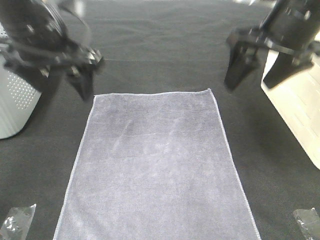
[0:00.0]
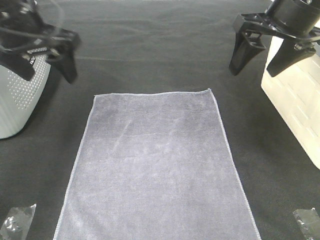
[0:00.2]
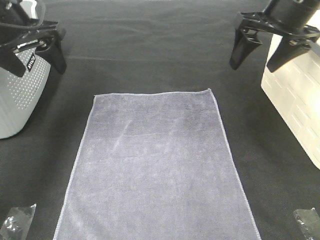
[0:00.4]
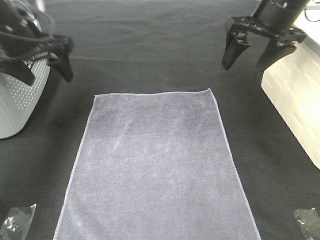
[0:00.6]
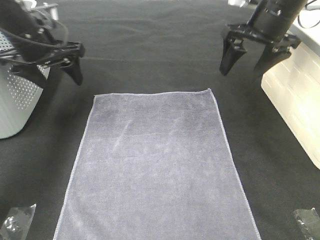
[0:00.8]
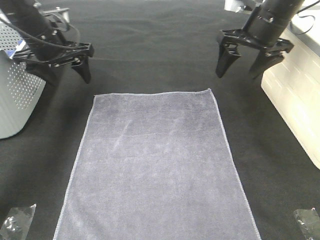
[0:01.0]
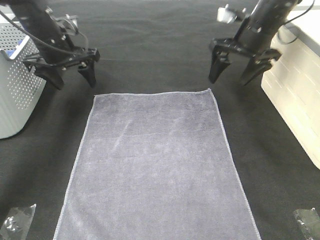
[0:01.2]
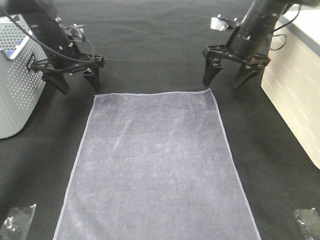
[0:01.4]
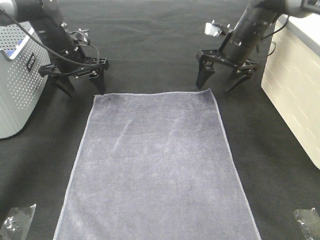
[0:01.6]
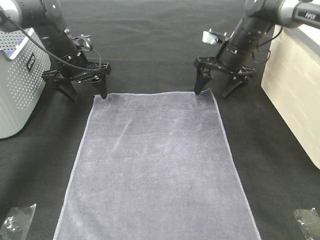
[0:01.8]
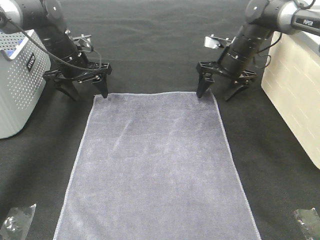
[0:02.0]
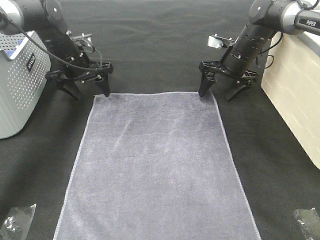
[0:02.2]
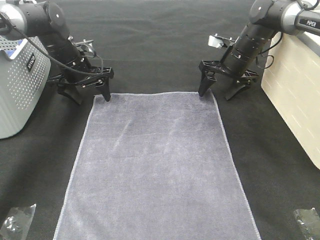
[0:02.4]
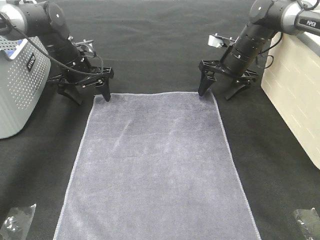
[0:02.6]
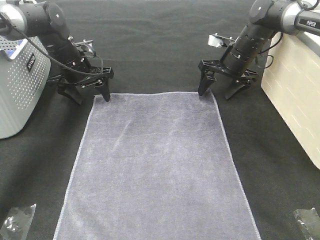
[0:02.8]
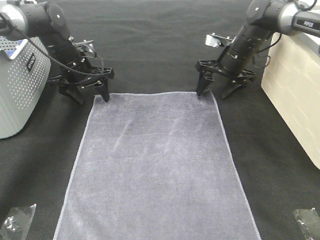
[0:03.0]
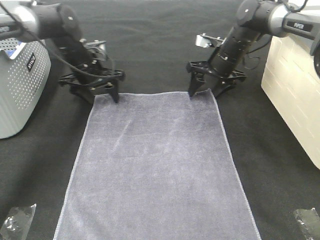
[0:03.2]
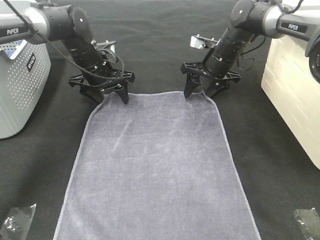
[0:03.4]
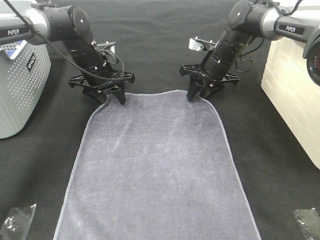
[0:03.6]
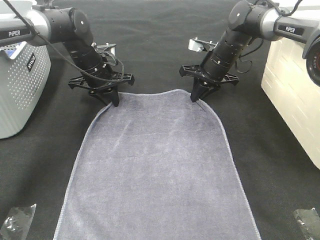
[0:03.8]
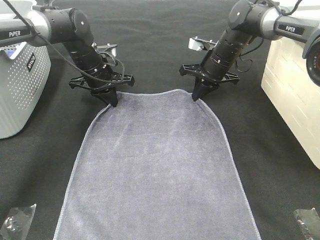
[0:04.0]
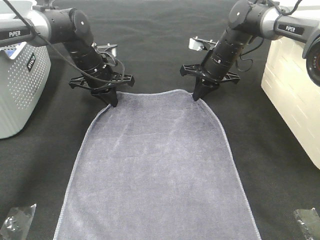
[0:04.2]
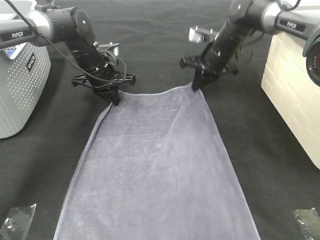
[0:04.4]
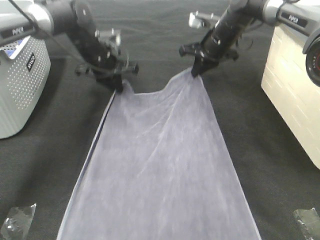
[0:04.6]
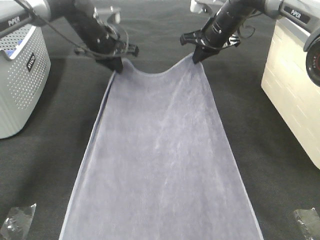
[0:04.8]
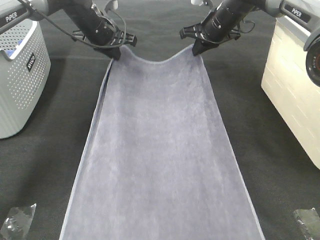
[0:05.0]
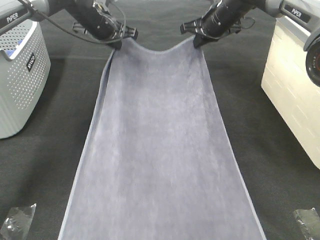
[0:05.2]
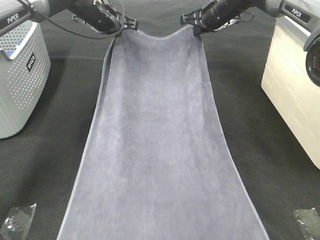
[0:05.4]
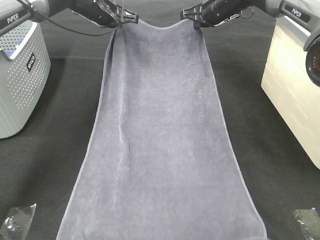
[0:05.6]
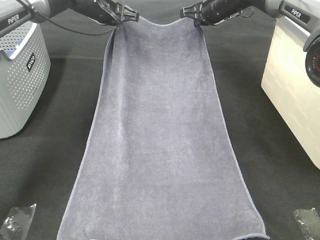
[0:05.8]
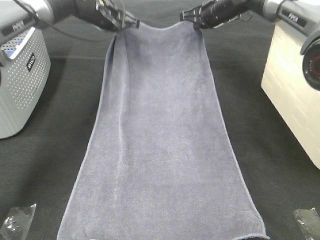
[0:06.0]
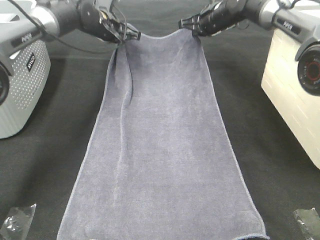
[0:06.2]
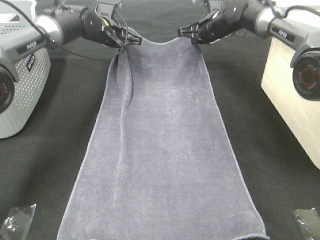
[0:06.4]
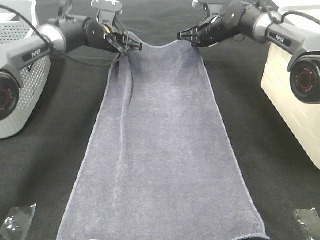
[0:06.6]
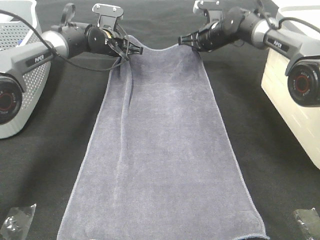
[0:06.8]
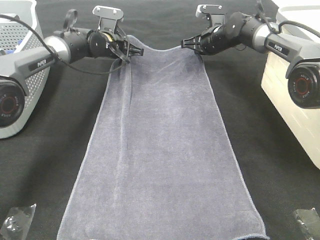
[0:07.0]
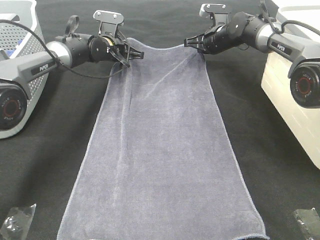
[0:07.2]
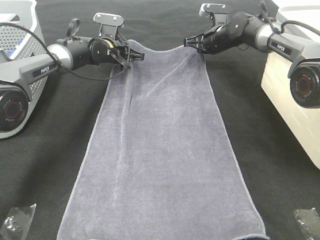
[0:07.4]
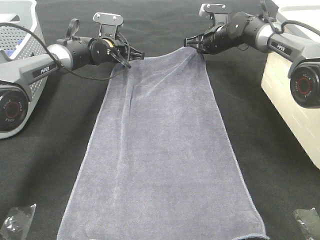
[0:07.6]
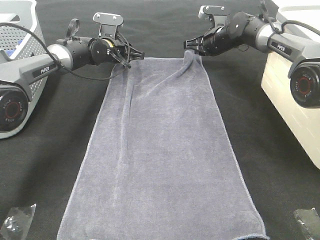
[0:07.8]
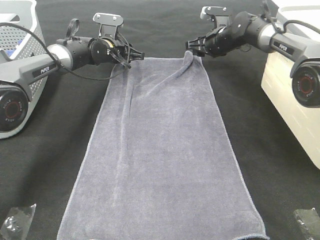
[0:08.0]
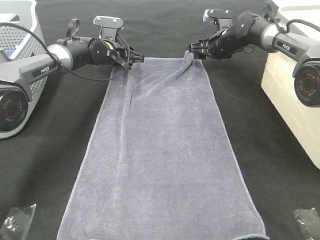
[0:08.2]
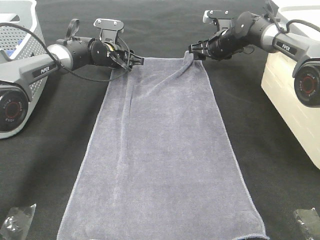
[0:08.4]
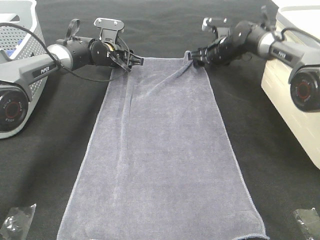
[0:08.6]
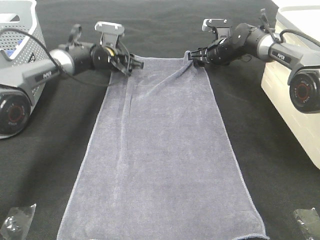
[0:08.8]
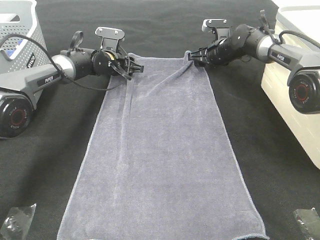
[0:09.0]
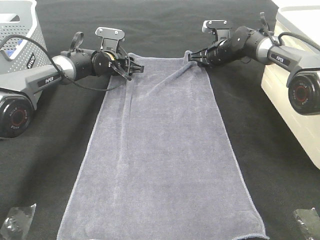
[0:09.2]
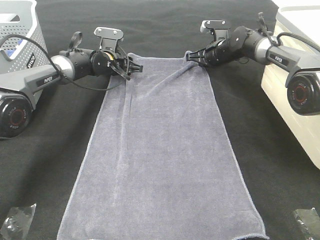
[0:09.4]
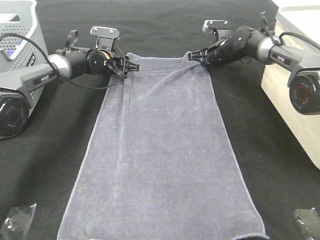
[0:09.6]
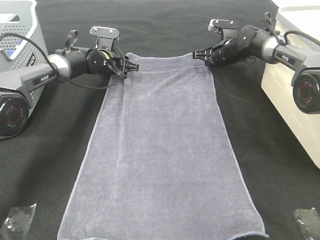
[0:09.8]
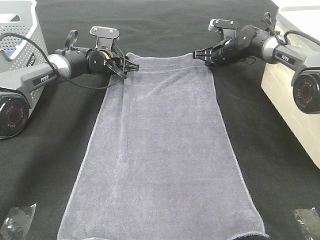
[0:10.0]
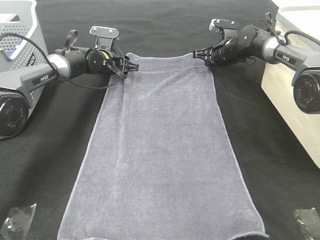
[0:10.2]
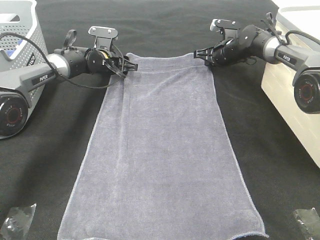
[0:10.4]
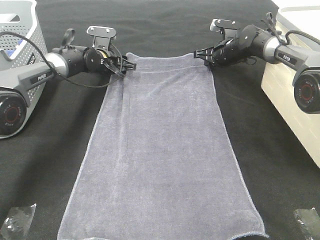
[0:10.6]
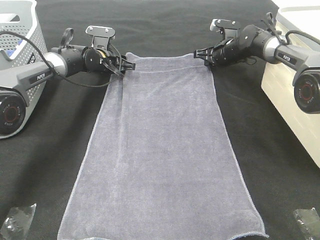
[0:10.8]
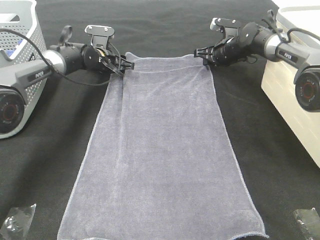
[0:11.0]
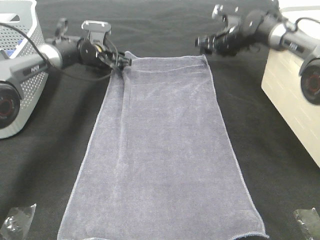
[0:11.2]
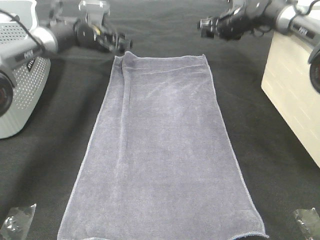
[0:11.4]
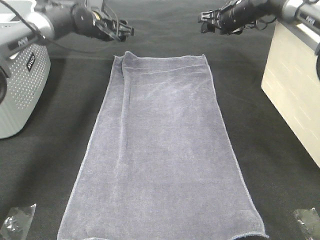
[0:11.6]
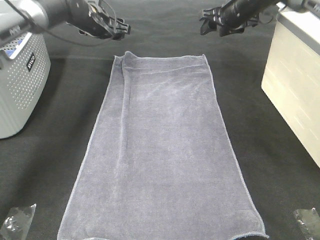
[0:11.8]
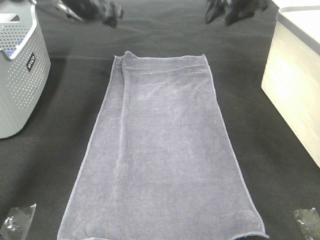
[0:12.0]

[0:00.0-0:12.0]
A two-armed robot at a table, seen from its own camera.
Task of the whole recording: Remove the towel and place it.
0:00.0 to 0:01.6: Both grippers move forward and downward, approximately 25 cm.
0:01.6 to 0:03.0: There are only small adjustments of the grippers.
0:03.0 to 0:04.4: The right gripper closes. Meanwhile the left gripper closes.
0:04.4 to 0:06.0: The two grippers go roughly 10 cm upward and forward.
0:06.0 to 0:07.6: The grippers both shift downward by roughly 10 cm.
0:07.6 to 0:09.0: The right gripper opens.
0:09.0 to 0:10.4: The right gripper closes its fingers.
0:10.4 to 0:12.0: Both grippers travel together upward, roughly 20 cm. The right gripper opens up.

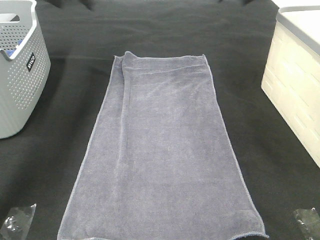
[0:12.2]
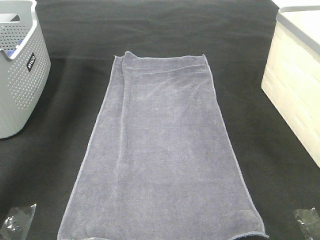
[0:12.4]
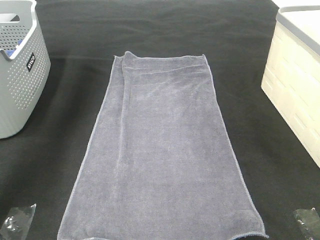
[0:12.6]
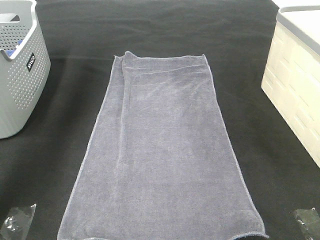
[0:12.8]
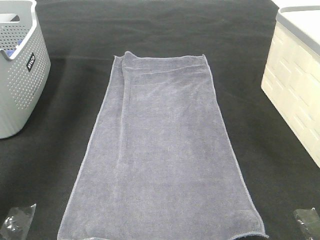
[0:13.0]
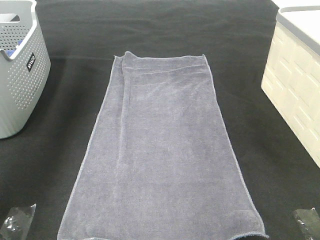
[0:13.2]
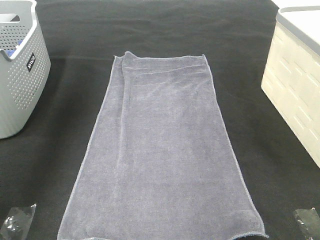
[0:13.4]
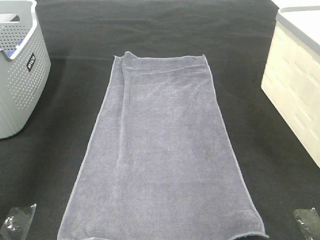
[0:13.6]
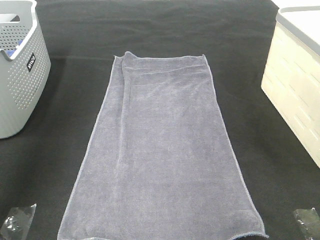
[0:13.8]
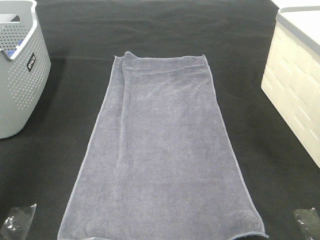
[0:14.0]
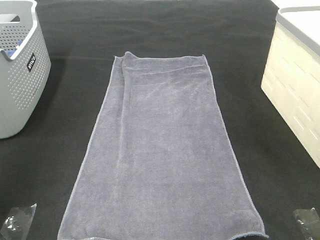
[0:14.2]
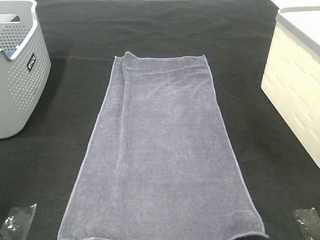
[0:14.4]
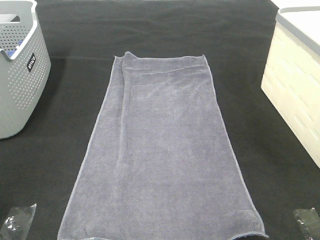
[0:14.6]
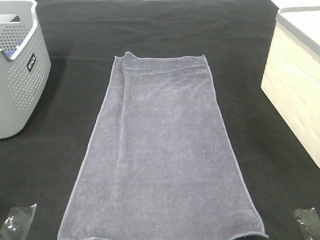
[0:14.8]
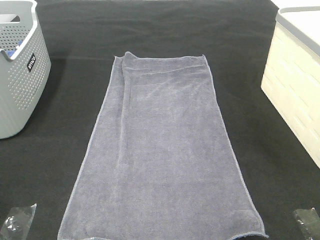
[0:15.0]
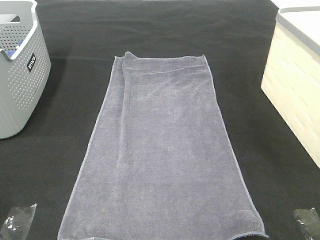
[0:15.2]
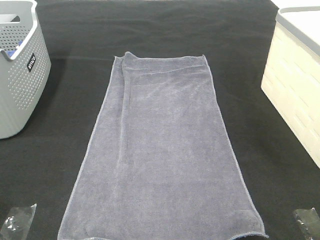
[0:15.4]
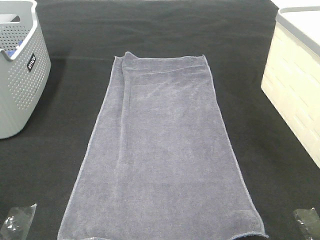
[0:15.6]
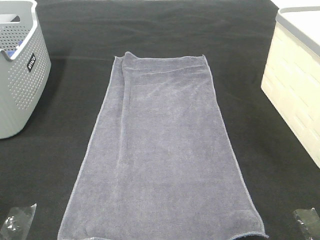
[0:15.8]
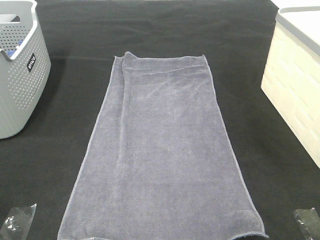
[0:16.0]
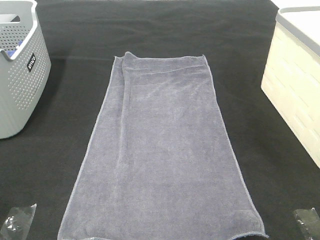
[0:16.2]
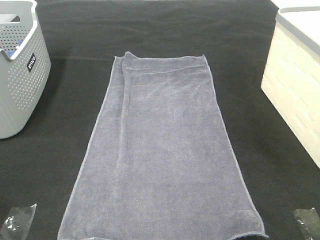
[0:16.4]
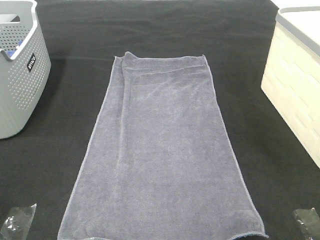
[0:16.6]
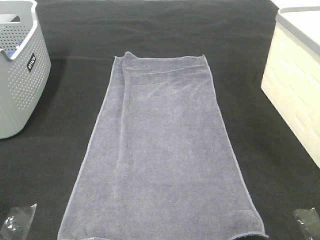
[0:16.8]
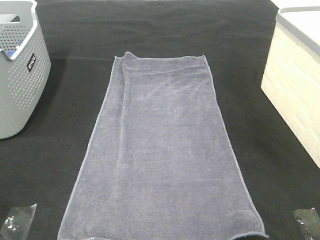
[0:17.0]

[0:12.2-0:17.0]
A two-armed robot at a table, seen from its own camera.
Task of the whole recording: Remove the towel and place it.
0:12.2 to 0:13.8: The two grippers go approximately 35 cm backward.
0:13.8 to 0:15.4: The left gripper heads backward and downward, covering about 25 cm.

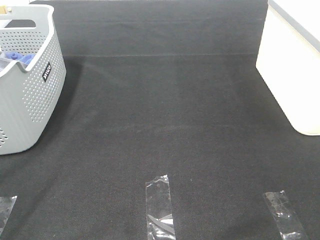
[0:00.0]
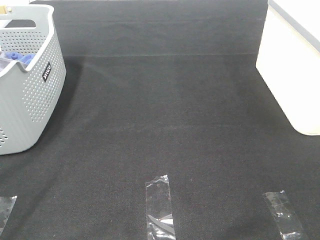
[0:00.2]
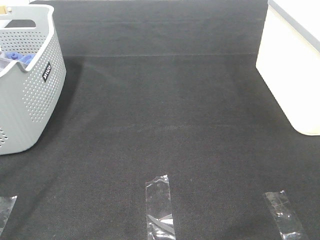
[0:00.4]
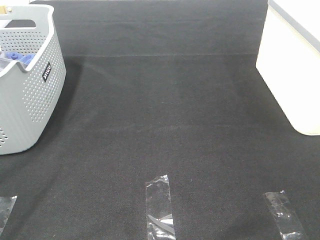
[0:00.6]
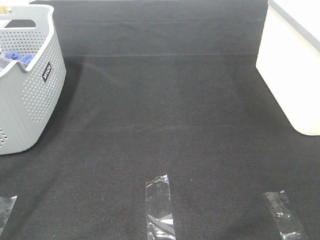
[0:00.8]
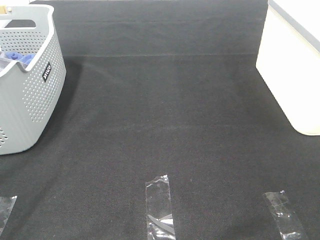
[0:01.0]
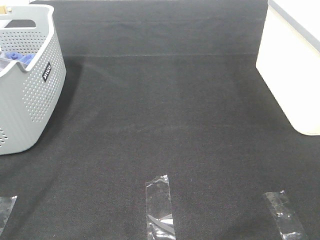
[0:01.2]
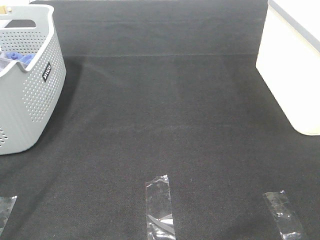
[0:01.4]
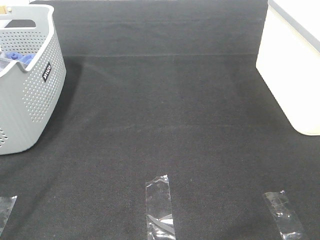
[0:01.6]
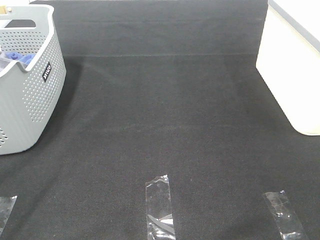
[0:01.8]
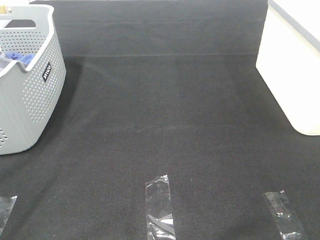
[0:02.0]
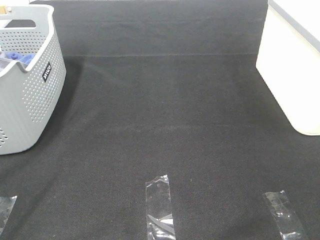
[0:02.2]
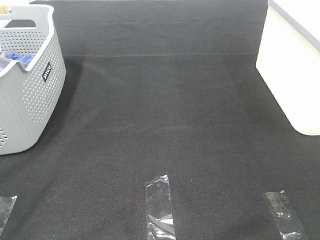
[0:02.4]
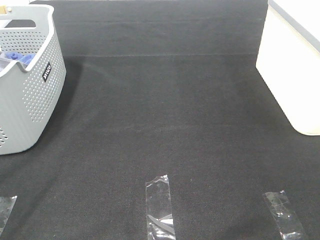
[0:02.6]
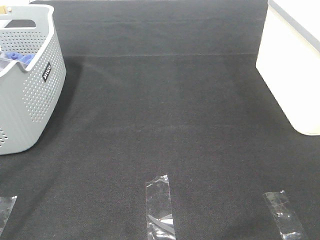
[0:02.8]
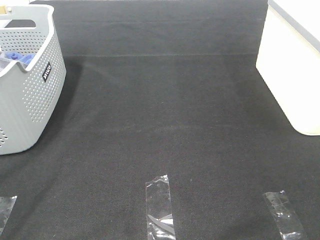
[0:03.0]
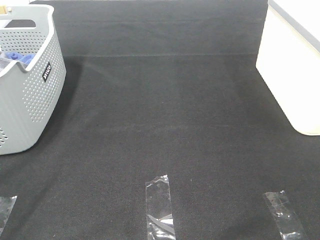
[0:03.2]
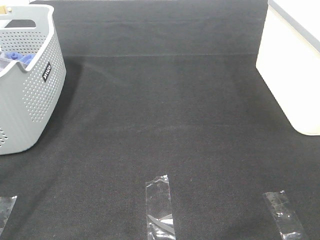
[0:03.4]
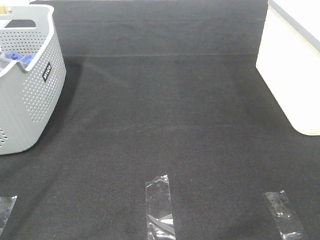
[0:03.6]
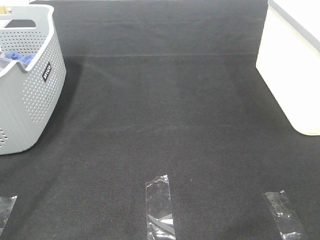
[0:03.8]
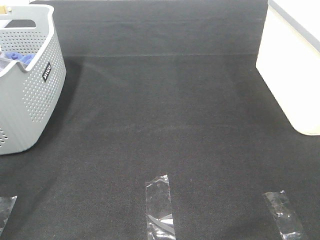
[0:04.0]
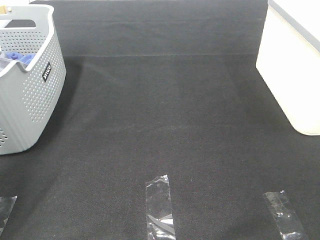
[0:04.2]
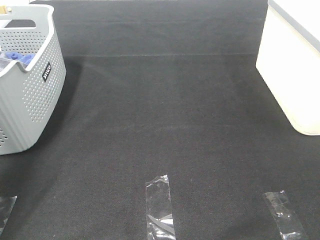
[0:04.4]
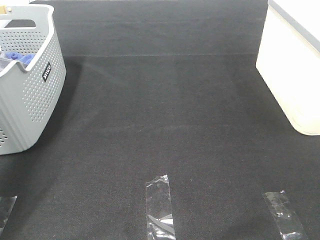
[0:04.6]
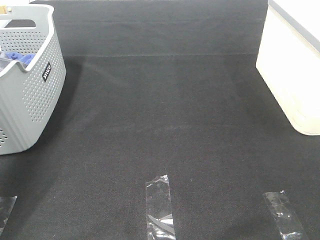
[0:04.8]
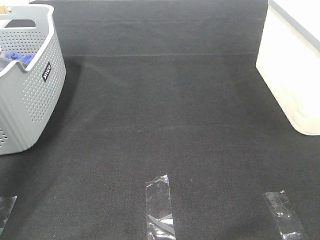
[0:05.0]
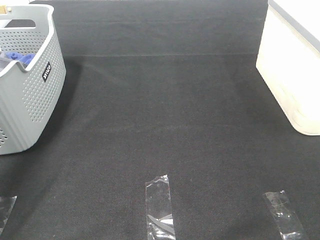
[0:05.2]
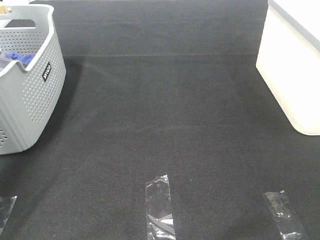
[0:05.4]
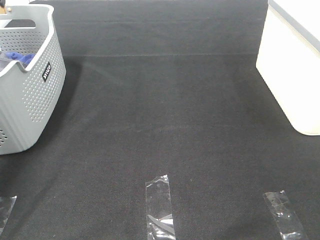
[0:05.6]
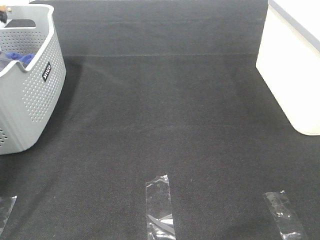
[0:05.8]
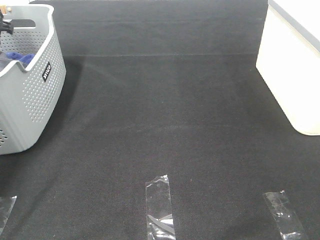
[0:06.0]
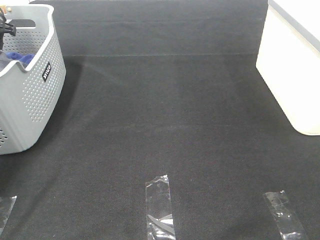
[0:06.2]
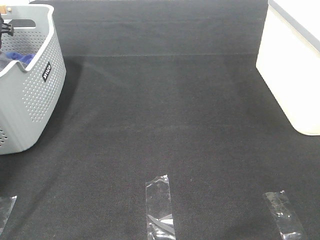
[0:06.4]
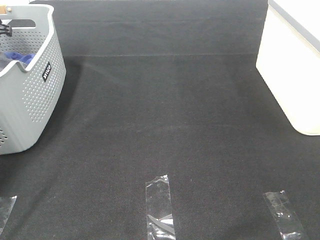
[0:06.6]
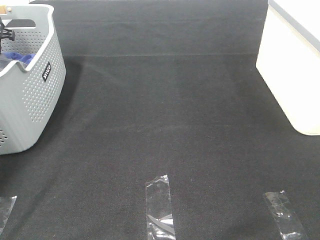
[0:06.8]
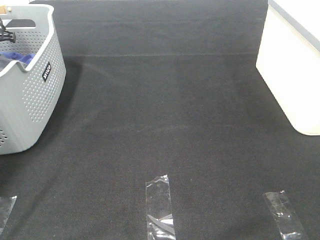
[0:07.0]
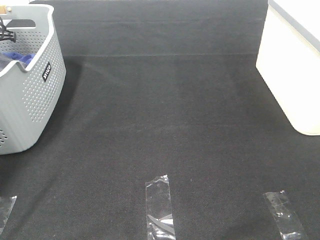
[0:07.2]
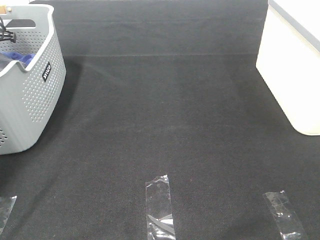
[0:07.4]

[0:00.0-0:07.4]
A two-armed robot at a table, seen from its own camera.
Task of the whole recording: Remove the towel and place it.
0:00.0 to 0:03.0: Neither gripper changes place.
0:03.0 to 0:04.4: The left gripper moves forward, roughly 20 cm.
0:04.4 to 0:06.0: The left gripper shifts roughly 30 cm forward.
